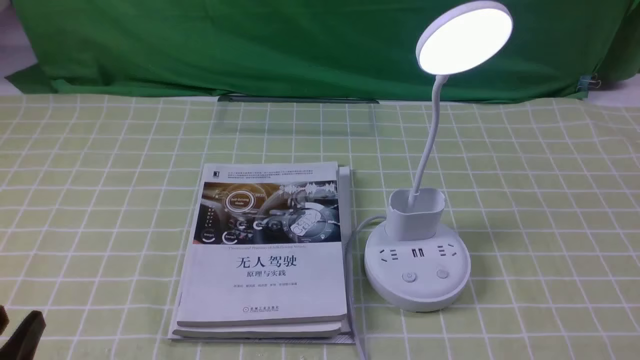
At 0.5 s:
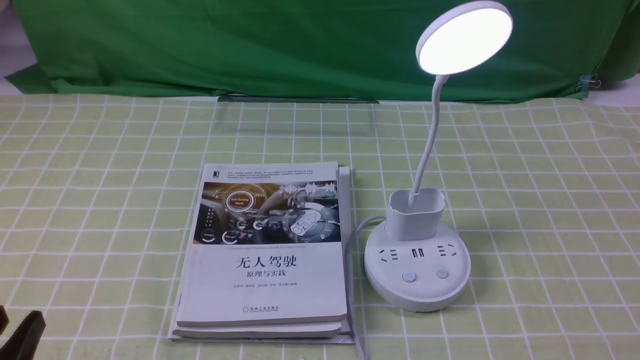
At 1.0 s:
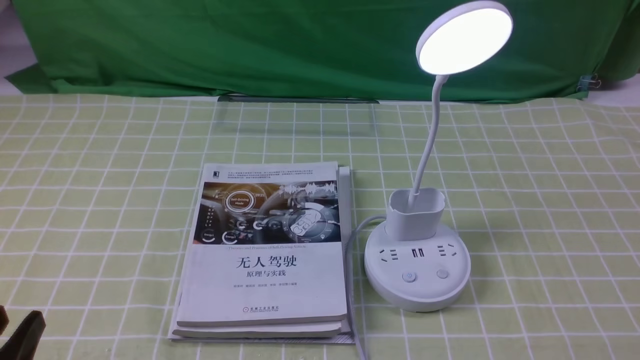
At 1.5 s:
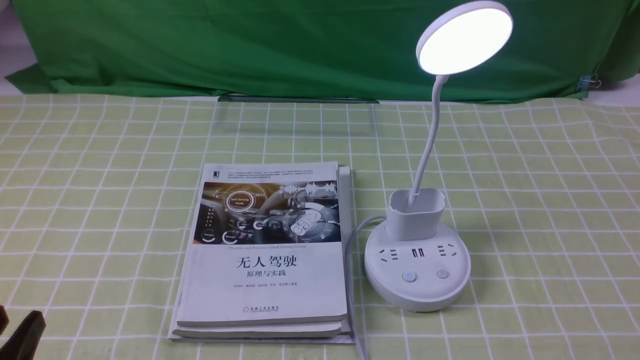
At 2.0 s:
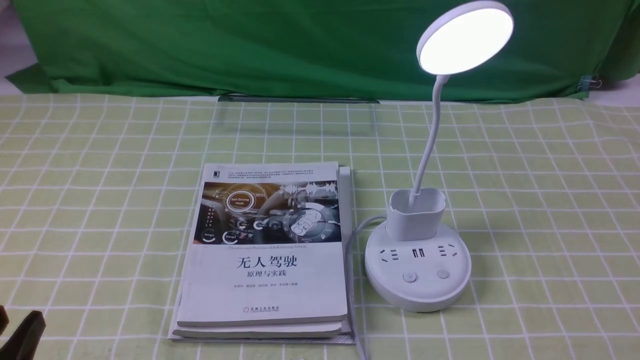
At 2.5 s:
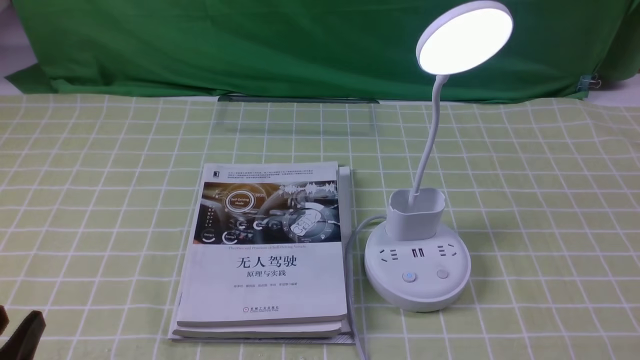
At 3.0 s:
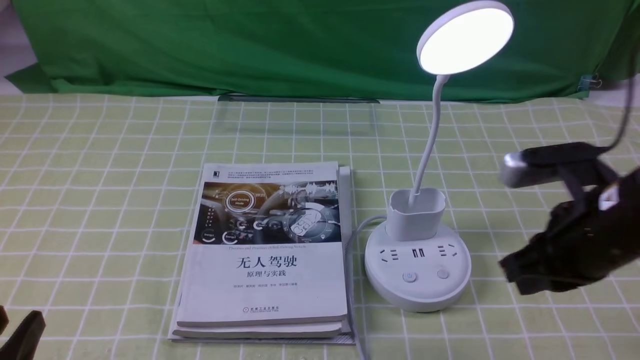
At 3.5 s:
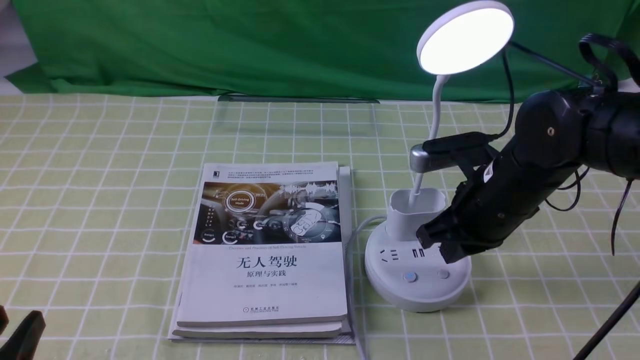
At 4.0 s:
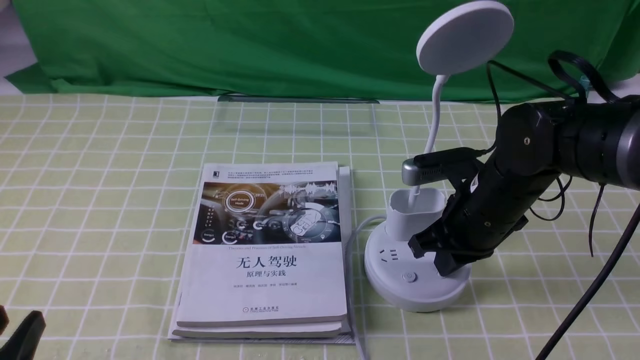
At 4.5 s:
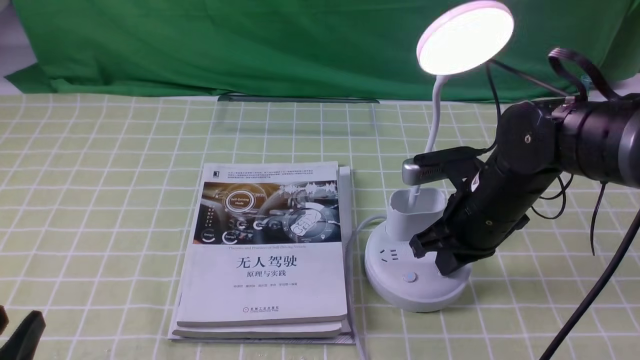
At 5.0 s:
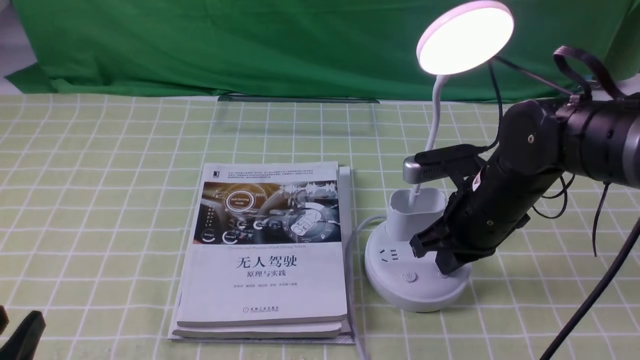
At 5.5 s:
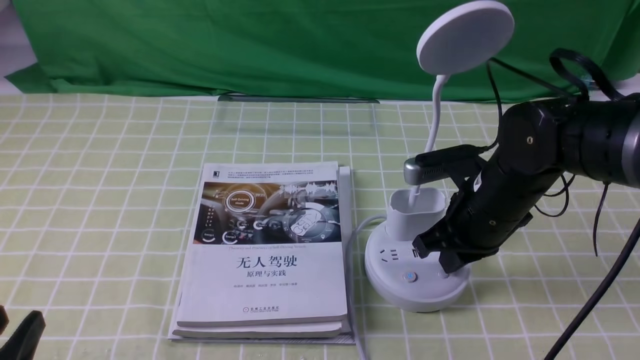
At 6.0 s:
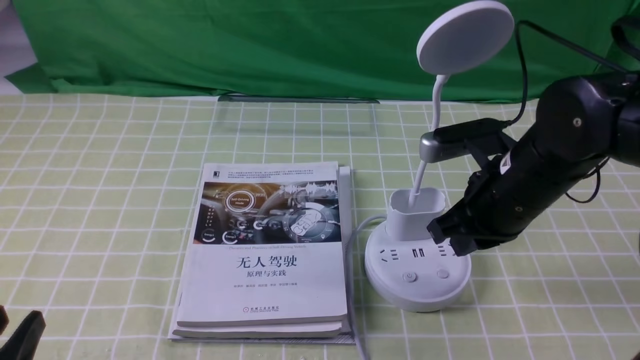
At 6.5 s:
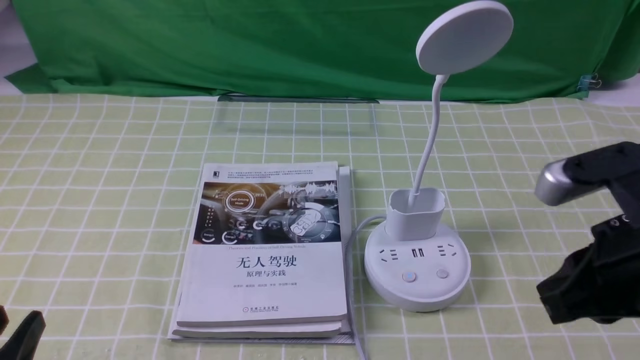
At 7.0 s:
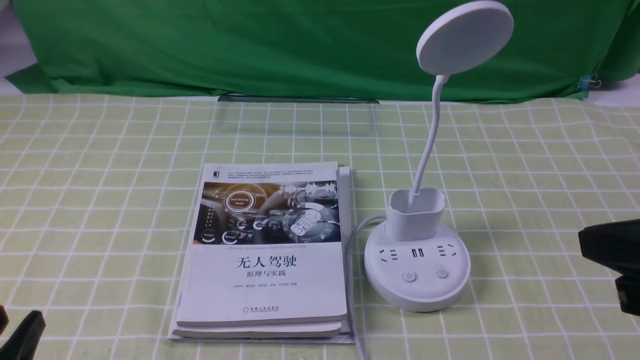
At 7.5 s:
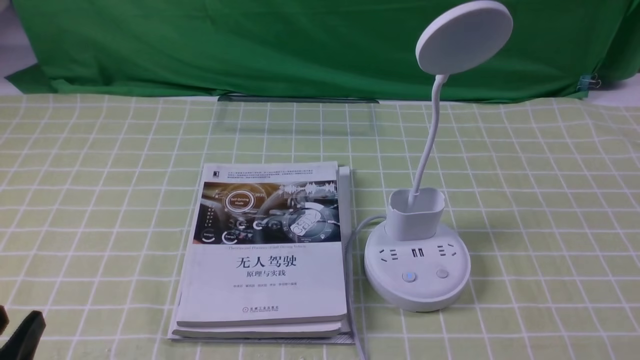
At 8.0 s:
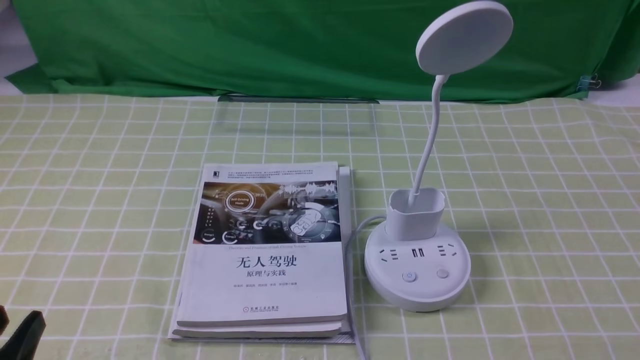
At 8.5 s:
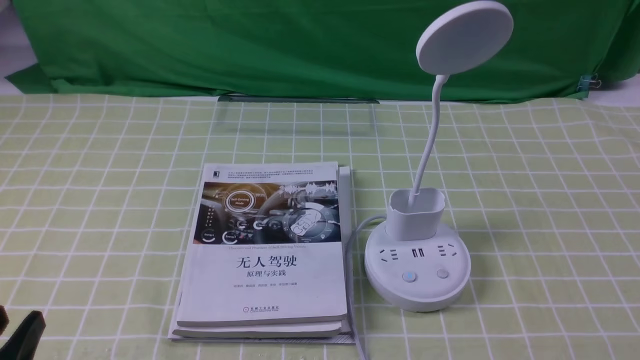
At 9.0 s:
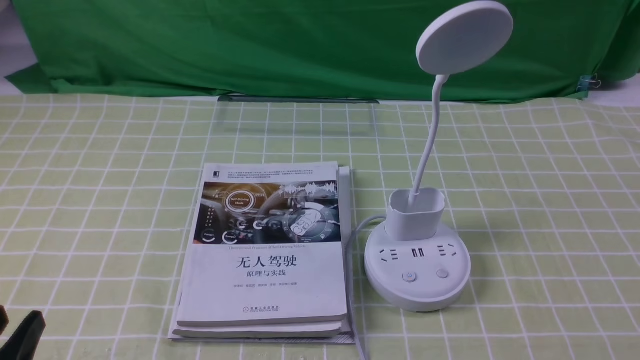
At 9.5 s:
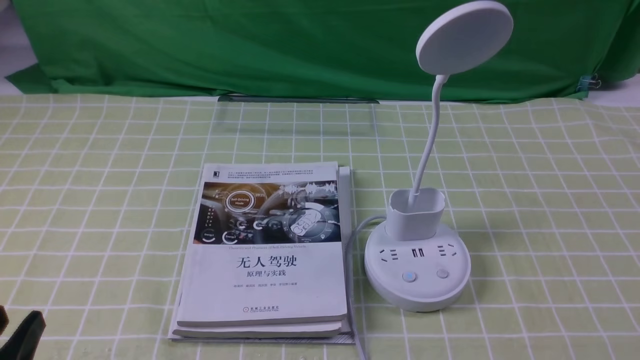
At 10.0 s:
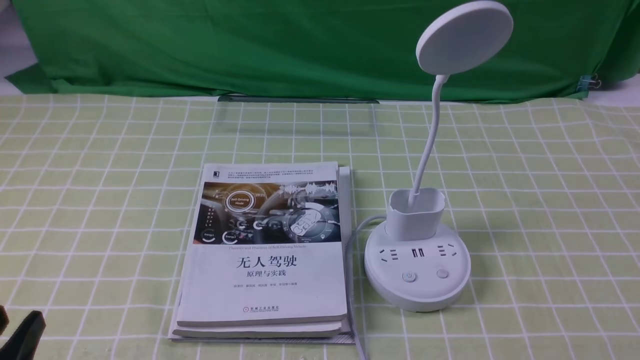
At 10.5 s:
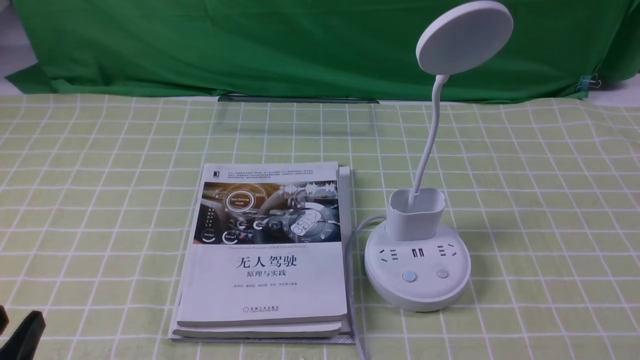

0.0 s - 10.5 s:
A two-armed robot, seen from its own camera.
Task of the whole recording: turn off the desk lamp on the green coffee tablecloth by hand.
Step, 0.0 s - 5.5 s: use the right arm to press the button switch on the lamp holder.
2.0 s - 4.0 s: The right gripper is displaced forward and to the left by some 30 cm, and closes up.
4.0 s - 6.5 s: The right gripper is displaced backward, upward and to the right by some 20 cm.
6.5 s - 8.5 s: The right gripper moves backward, downward and to the right, some 20 cm.
